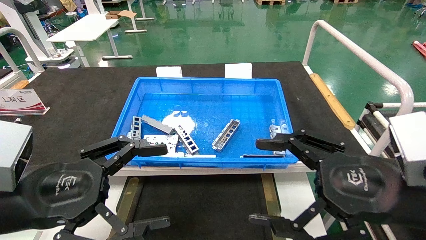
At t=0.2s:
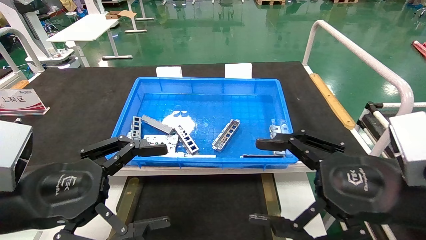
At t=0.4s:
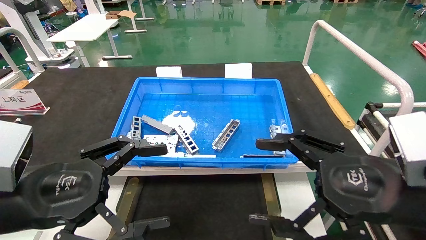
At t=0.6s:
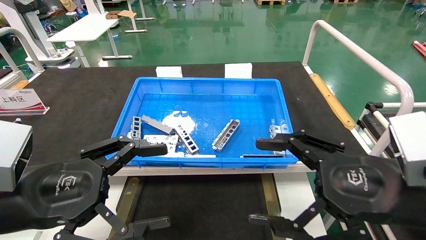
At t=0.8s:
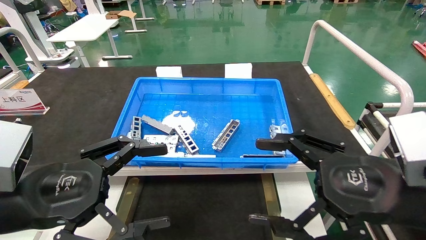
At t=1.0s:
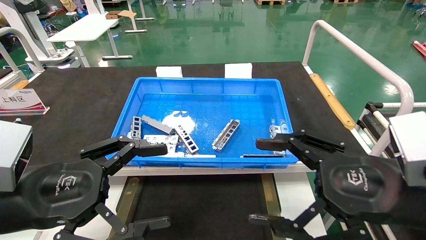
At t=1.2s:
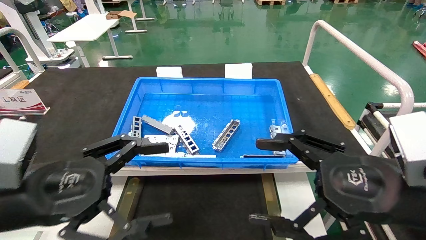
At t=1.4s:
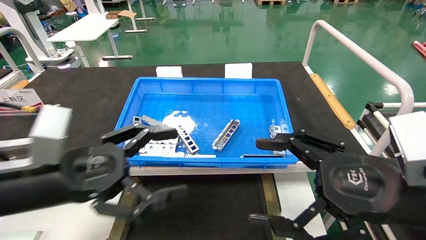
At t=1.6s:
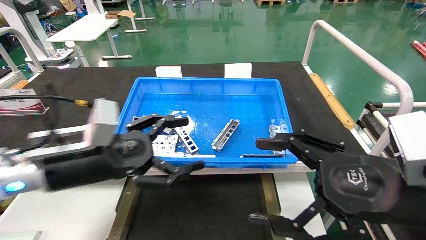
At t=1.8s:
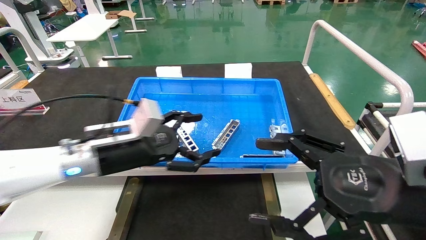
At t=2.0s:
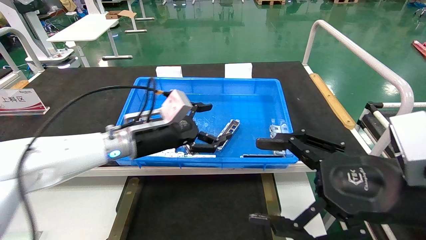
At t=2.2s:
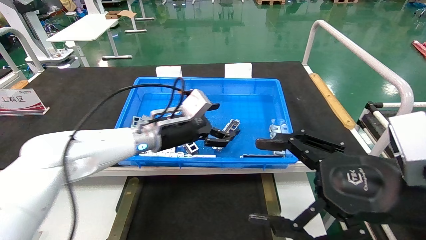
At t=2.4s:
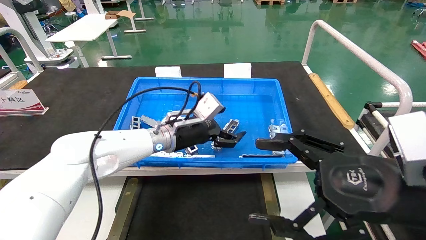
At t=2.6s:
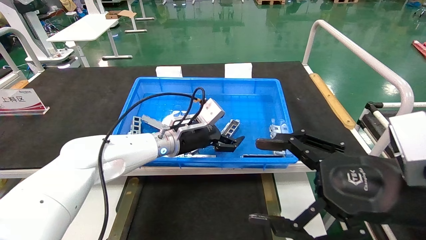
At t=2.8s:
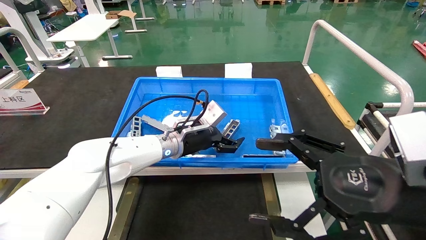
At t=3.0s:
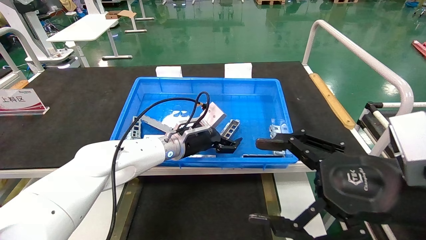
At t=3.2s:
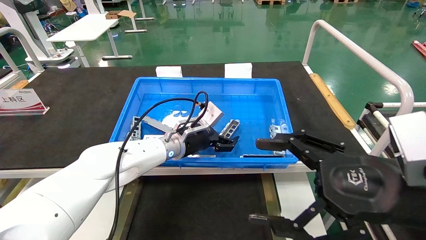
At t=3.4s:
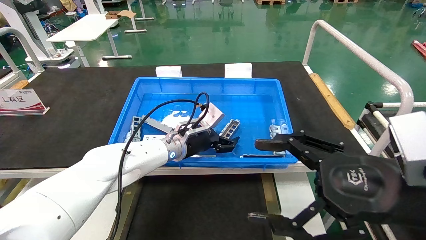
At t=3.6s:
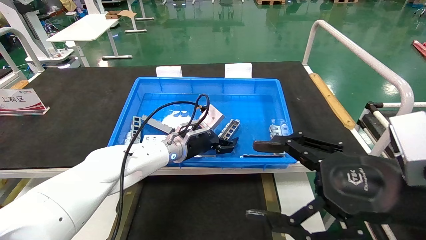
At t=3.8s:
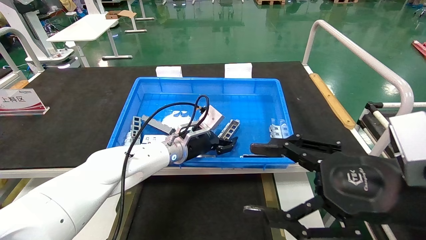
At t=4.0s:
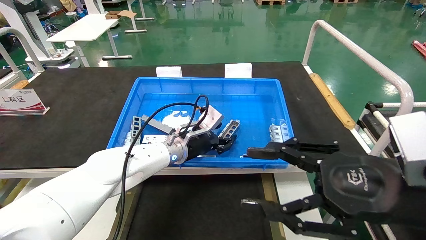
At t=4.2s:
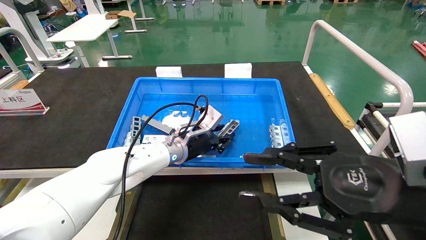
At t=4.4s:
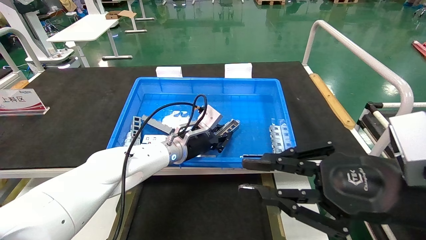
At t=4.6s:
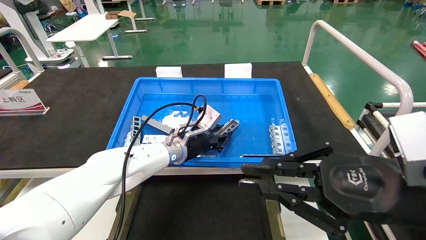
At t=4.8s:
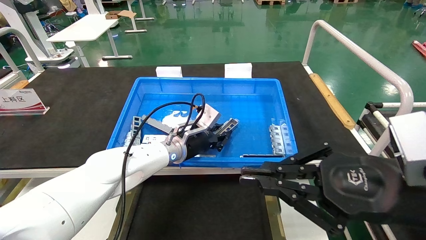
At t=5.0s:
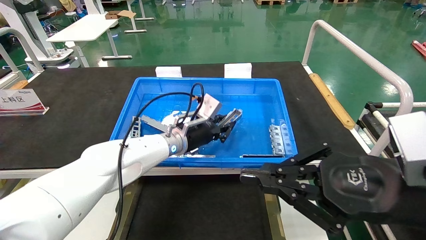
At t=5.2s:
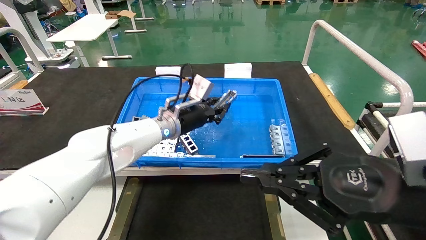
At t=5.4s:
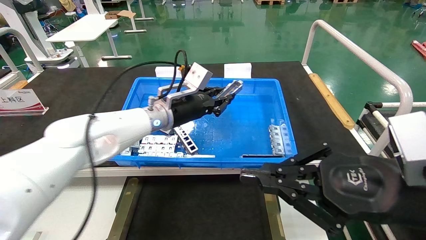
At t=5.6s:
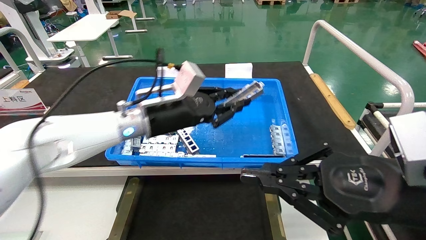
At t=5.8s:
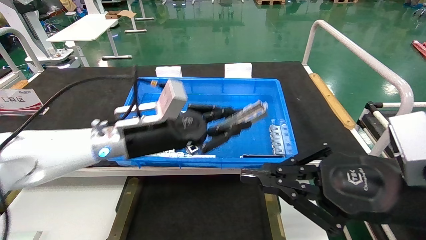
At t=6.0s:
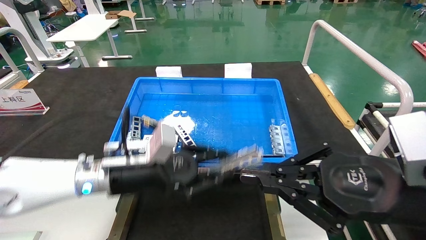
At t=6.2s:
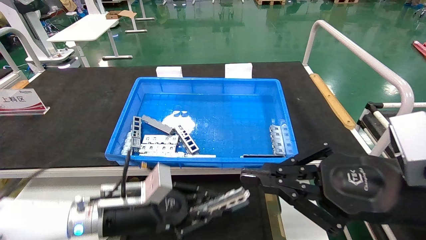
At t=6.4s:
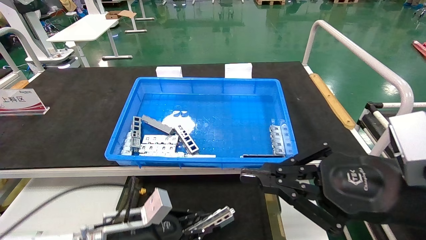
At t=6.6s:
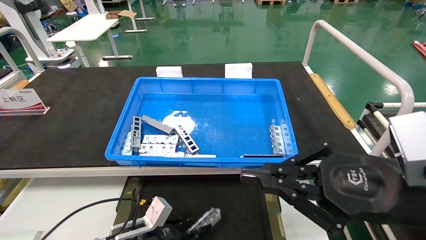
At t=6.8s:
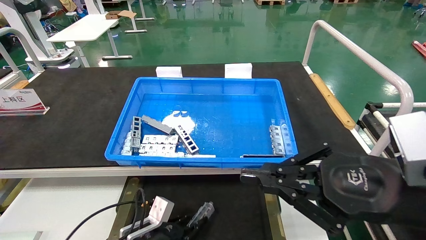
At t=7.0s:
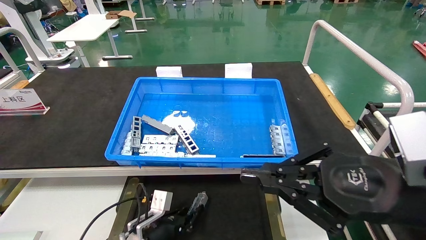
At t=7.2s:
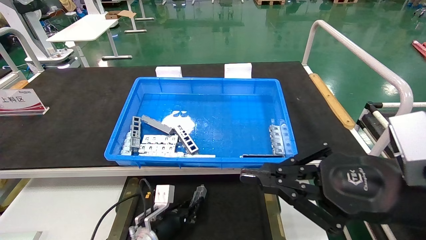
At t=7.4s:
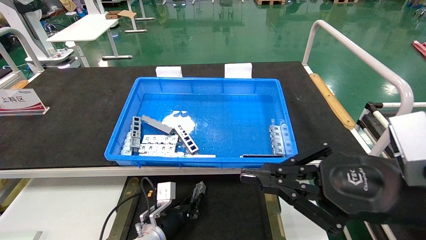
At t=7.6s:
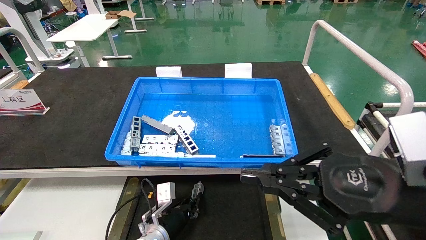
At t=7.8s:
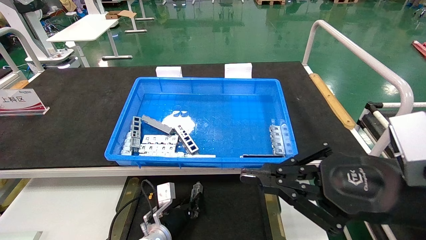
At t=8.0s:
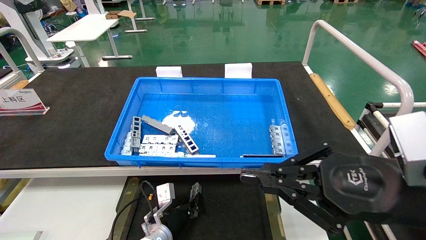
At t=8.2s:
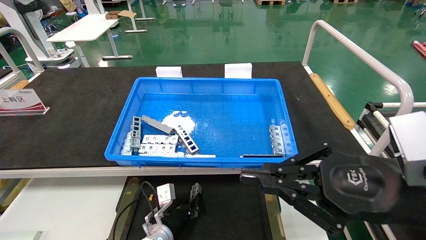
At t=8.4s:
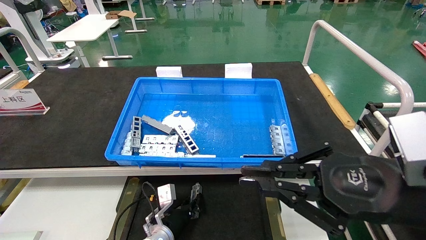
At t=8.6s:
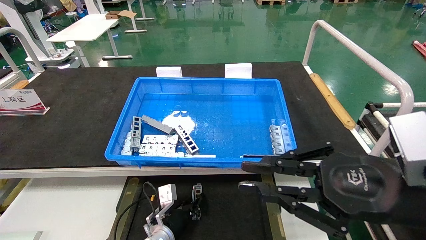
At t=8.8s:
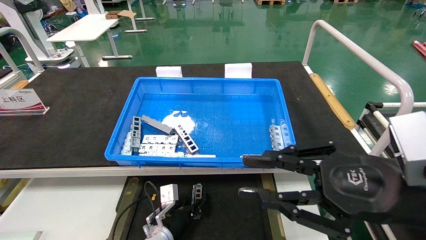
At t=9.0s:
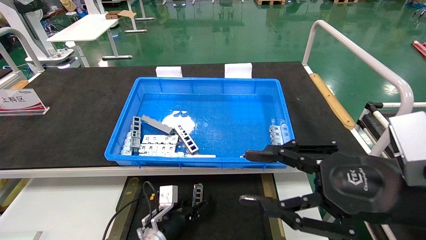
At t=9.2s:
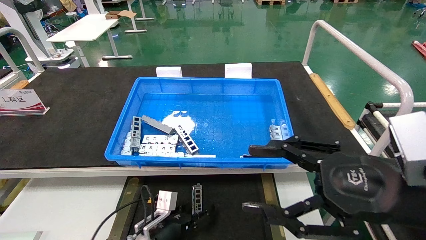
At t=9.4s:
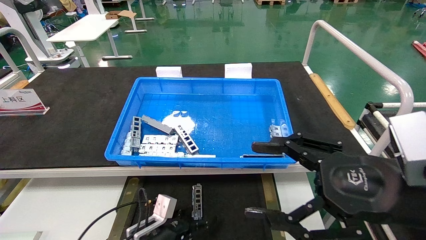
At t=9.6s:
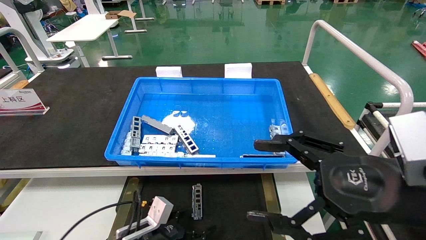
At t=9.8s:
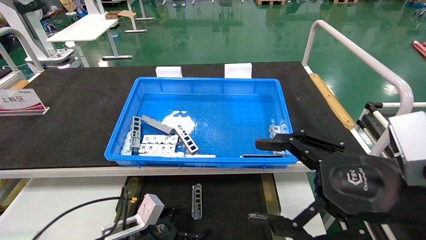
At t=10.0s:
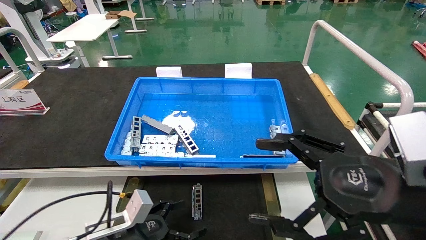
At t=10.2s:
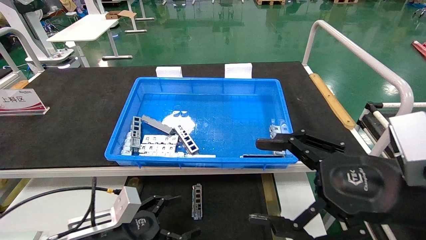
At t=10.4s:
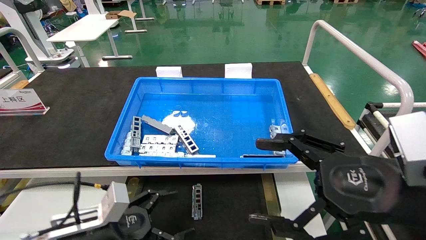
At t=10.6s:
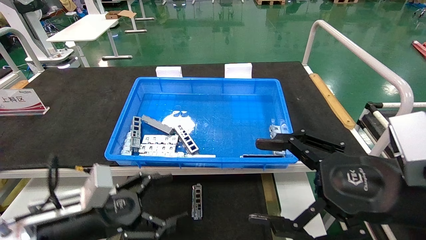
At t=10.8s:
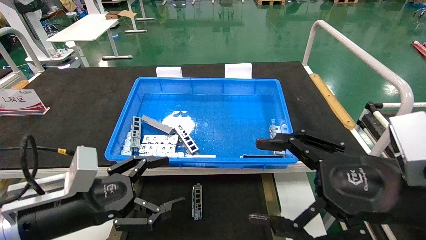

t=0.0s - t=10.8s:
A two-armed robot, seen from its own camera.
Task of the whole recording: Grasp the part with one hand and place it on the black container.
Step, t=1.6s - t=4.4s: Pick up the front USB bracket from the feeding area.
Step, t=4.6s - t=8.6s: Place the front USB bracket into the box.
t=0.0s - t=1.6s: The left gripper travels forward by about 10 cm.
t=1.6s - t=3.0s: The left gripper heads forward and to the right, covering some 25 cm.
t=3.0s - t=4.6s: The right gripper closes, while the left gripper closes its fingers.
t=4.6s - t=6.2s: The left gripper is displaced backward and to the left by about 20 cm.
t=6.2s - t=7.8s: The left gripper is displaced downward and forward by roughly 20 cm.
t=7.8s - t=9.2s: The right gripper opens up, while the left gripper opens its fingers.
t=9.2s - t=10.8s: The right gripper opens up, while the left gripper heads upward, backward and to the left, covering roughly 25 cm, and opens up.

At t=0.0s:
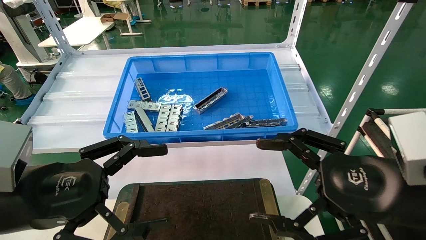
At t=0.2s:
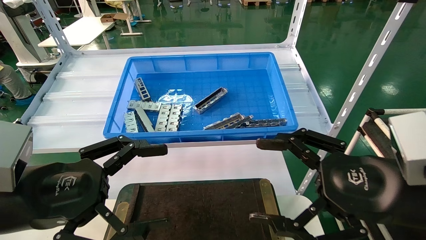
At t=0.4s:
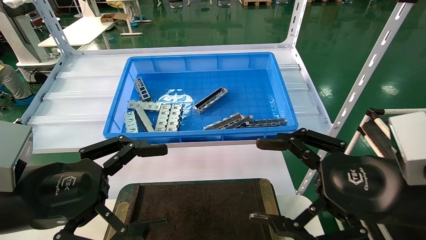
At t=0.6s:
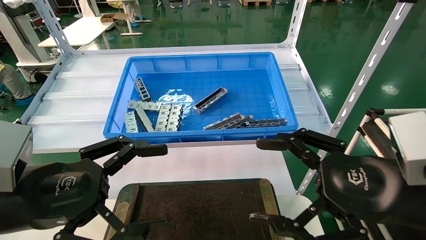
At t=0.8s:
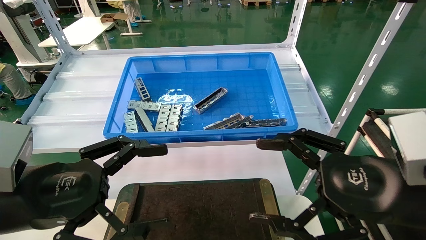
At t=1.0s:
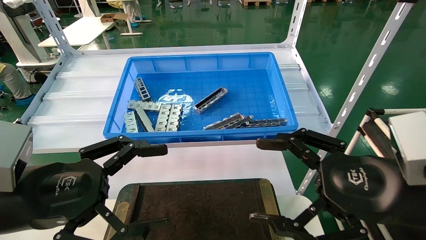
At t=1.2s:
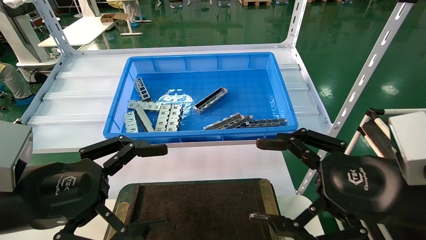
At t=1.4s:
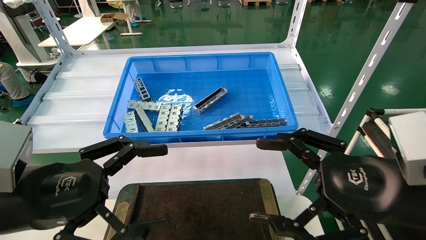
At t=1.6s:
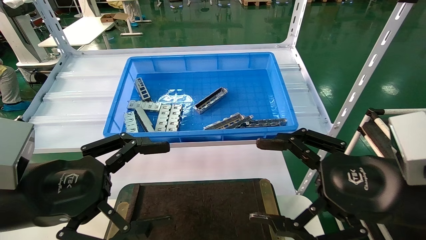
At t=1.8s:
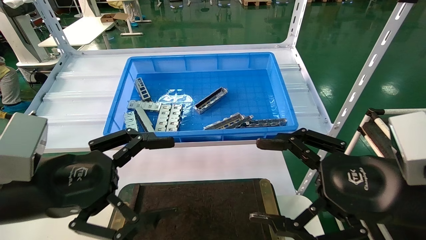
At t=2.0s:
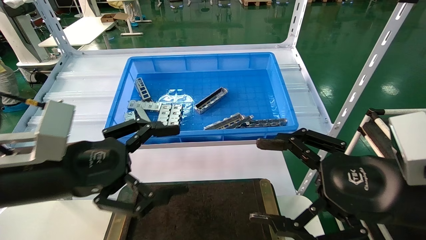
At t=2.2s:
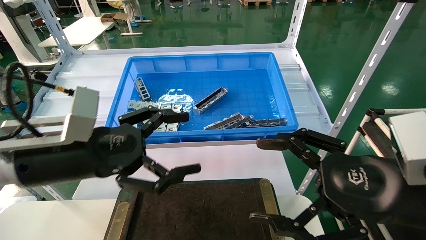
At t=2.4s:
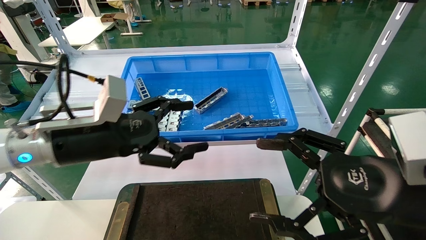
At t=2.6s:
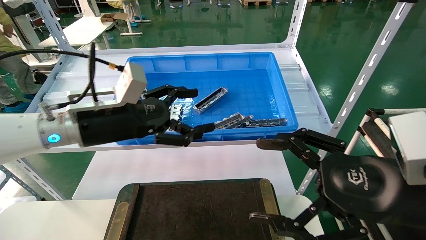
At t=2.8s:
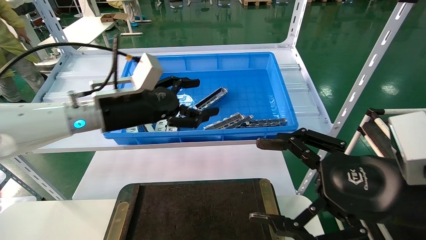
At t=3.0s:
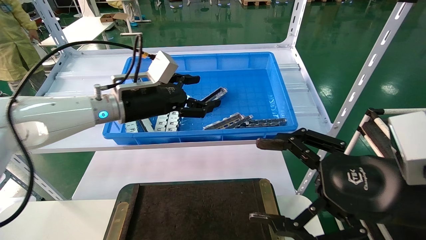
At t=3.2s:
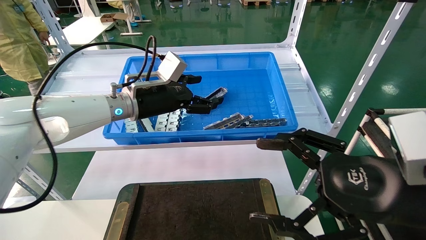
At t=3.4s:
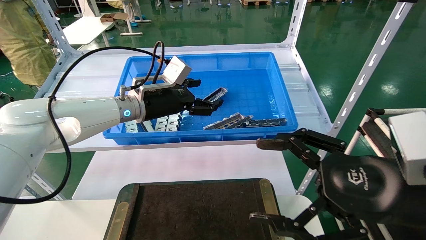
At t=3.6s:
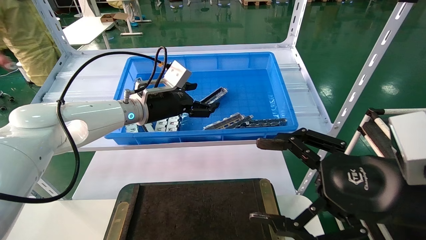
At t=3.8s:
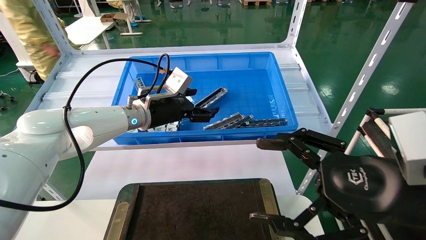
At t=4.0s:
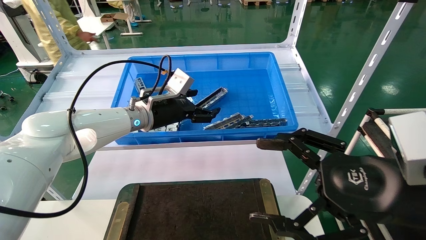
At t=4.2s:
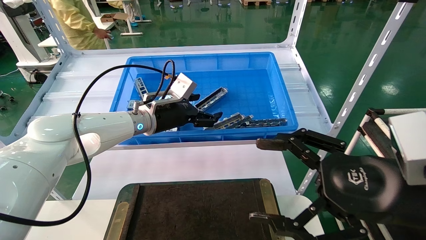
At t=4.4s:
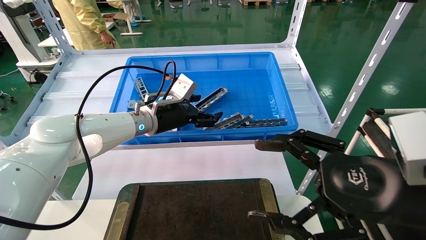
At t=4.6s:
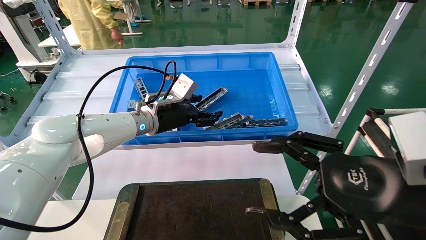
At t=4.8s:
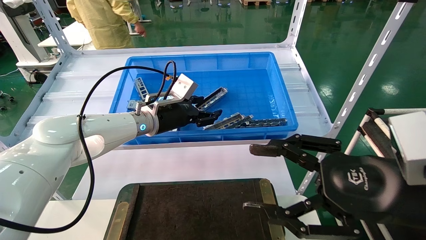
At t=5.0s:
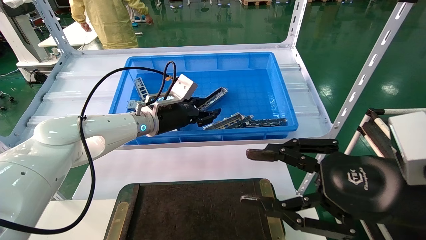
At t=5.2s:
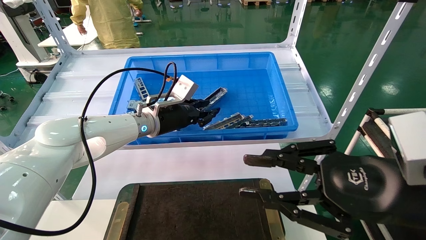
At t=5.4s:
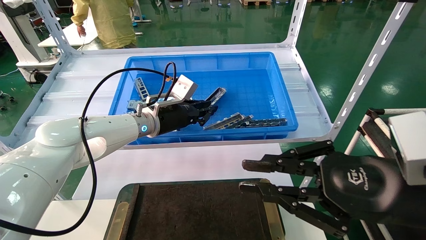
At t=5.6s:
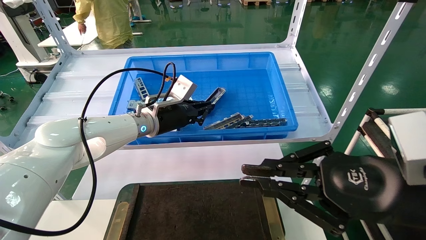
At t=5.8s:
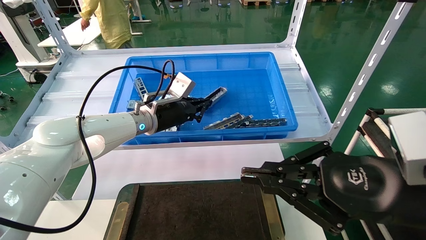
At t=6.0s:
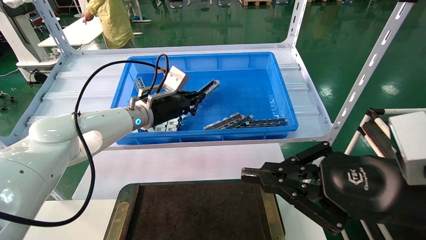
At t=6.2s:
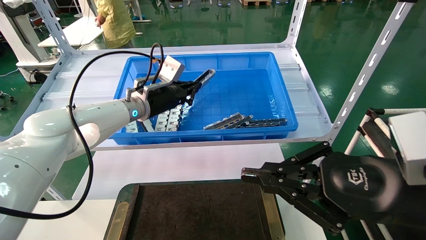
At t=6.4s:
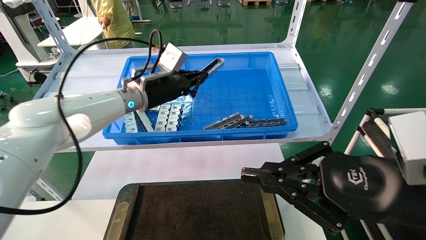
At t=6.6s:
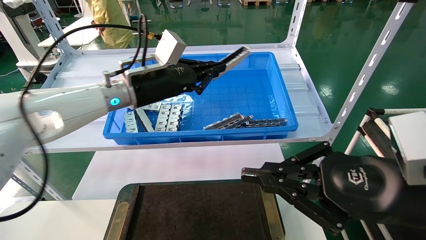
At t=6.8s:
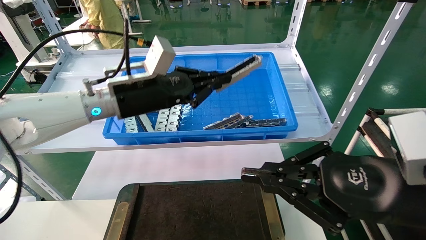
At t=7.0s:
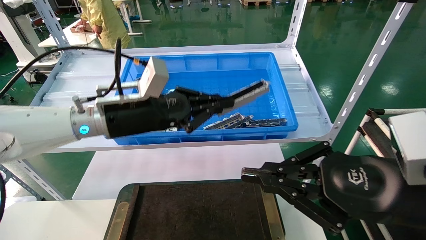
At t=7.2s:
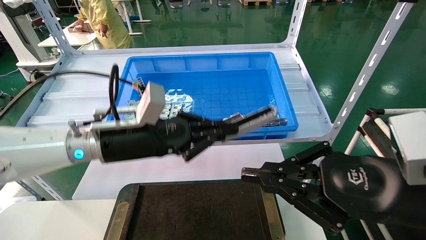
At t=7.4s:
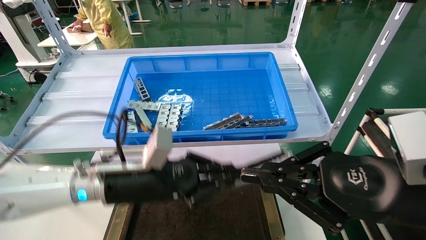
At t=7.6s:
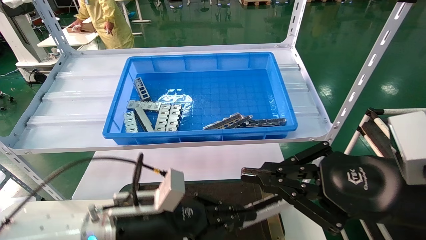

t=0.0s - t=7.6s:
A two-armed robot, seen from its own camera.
Task of the whole recording: Grasp the part with one hand and place it on the black container.
Step, t=2.0s - t=6.4s: Pick up the front USB bracket from the feeding area.
t=0.0s - t=1.6s: The two grippers keep their place.
t=1.6s - t=3.0s: The left gripper shifts approximately 25 cm forward.
t=3.0s - t=4.6s: The left gripper travels forward and downward by some 10 cm.
t=4.6s - t=6.0s: The right gripper closes, while the left gripper closes.
t=6.0s - t=7.6s: The left gripper goes about 25 cm backward and downward.
